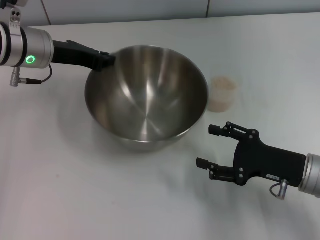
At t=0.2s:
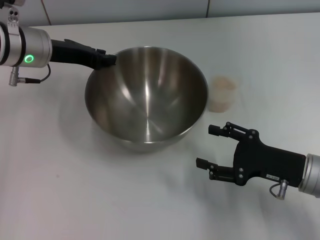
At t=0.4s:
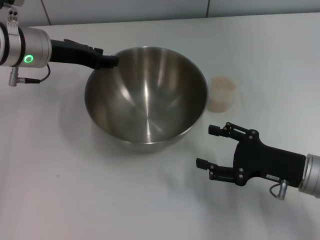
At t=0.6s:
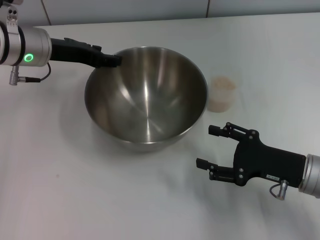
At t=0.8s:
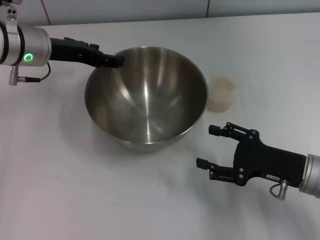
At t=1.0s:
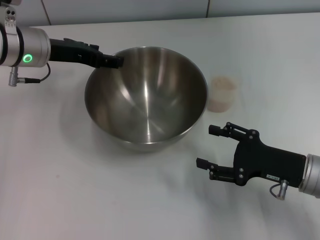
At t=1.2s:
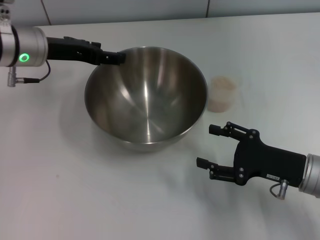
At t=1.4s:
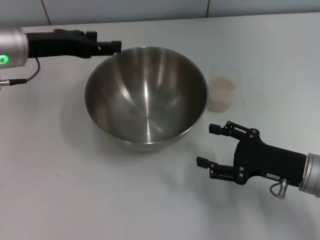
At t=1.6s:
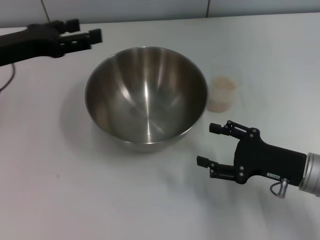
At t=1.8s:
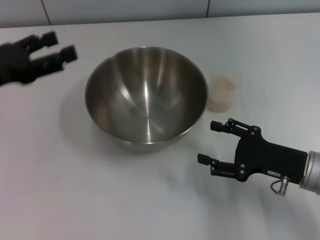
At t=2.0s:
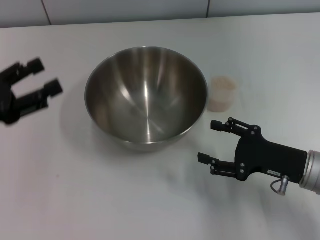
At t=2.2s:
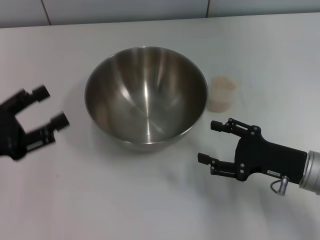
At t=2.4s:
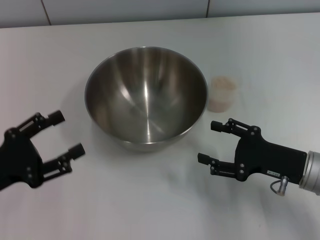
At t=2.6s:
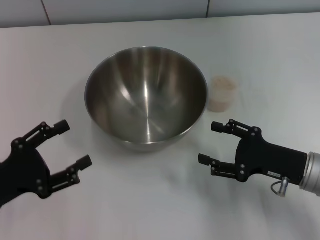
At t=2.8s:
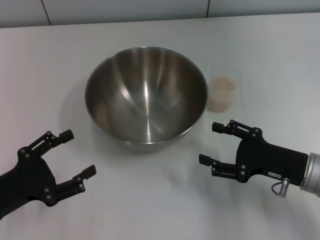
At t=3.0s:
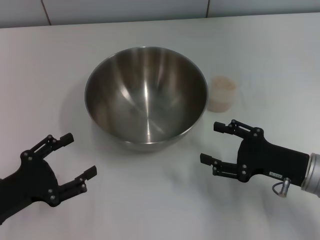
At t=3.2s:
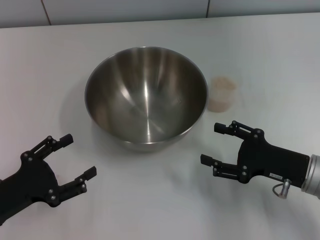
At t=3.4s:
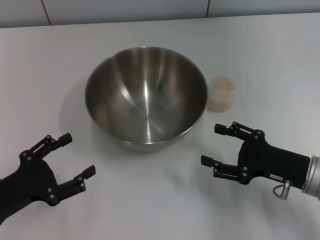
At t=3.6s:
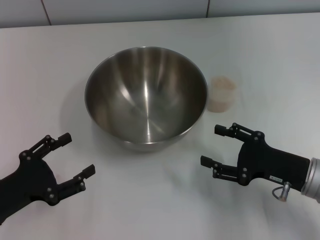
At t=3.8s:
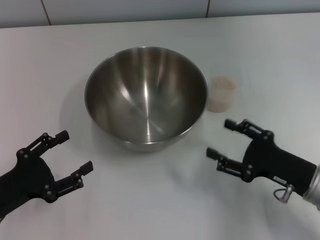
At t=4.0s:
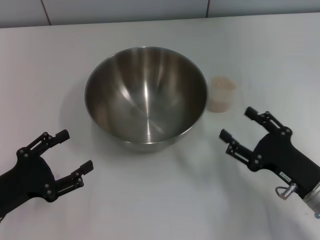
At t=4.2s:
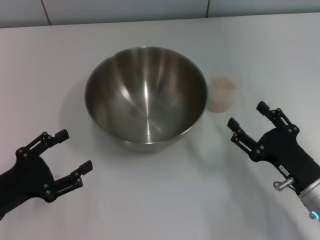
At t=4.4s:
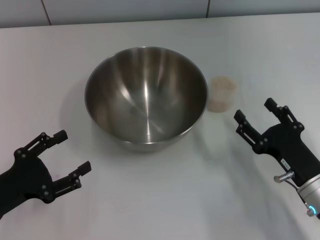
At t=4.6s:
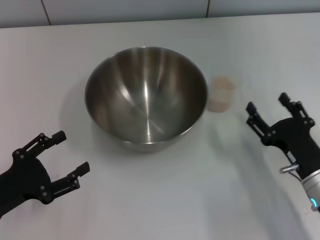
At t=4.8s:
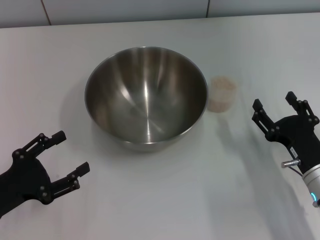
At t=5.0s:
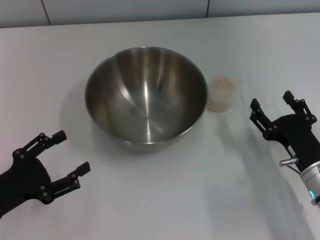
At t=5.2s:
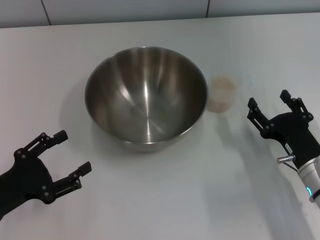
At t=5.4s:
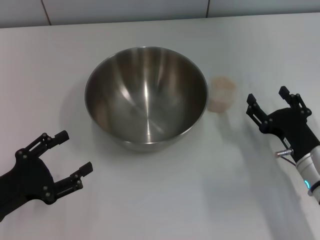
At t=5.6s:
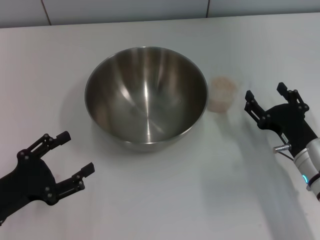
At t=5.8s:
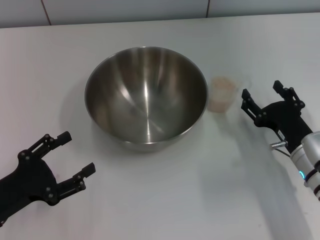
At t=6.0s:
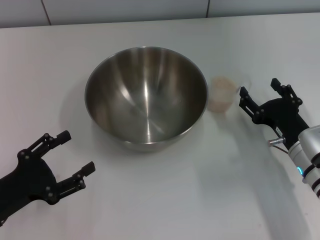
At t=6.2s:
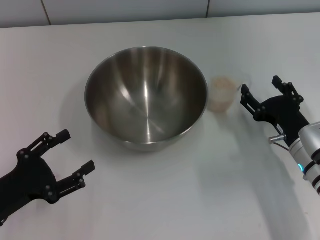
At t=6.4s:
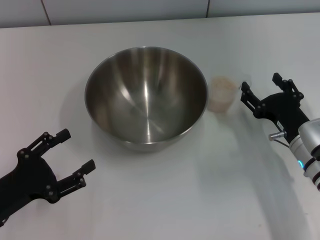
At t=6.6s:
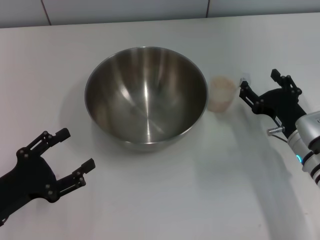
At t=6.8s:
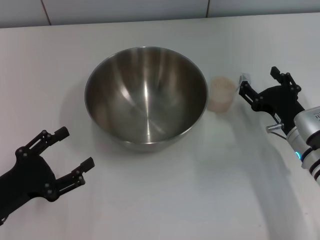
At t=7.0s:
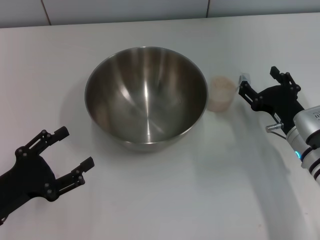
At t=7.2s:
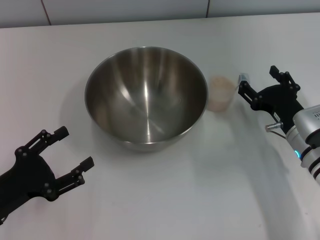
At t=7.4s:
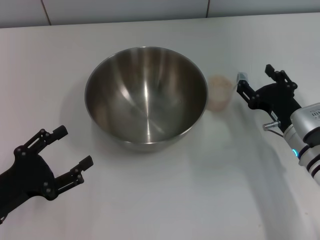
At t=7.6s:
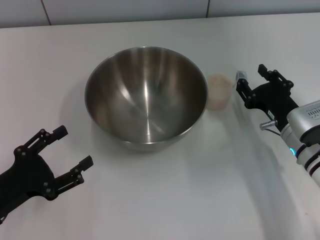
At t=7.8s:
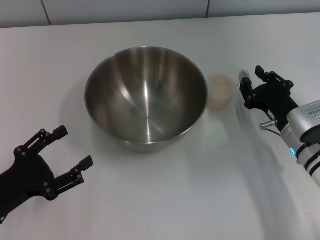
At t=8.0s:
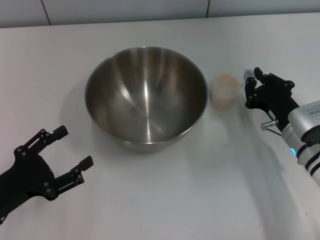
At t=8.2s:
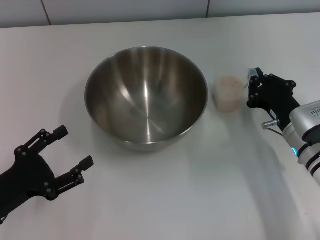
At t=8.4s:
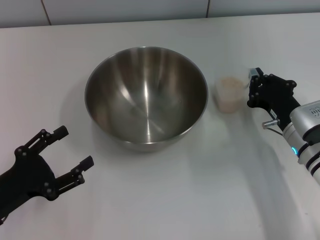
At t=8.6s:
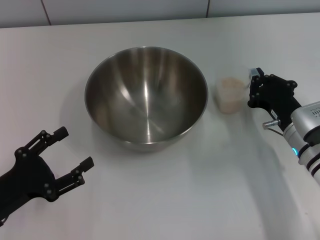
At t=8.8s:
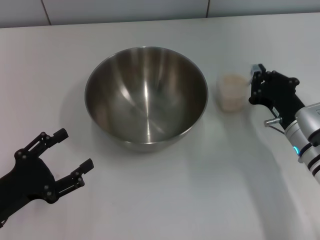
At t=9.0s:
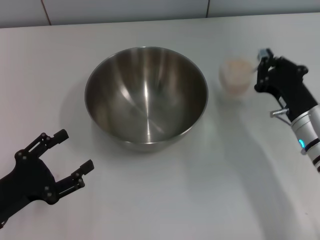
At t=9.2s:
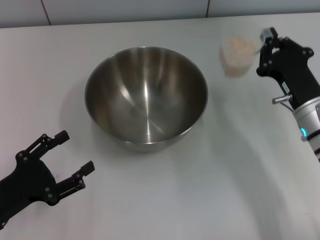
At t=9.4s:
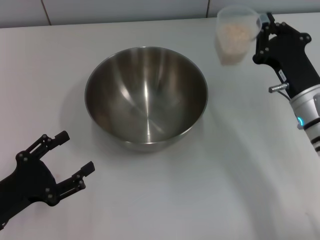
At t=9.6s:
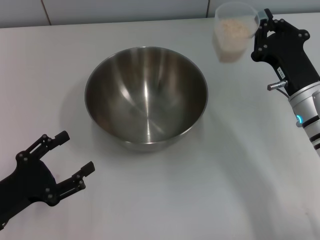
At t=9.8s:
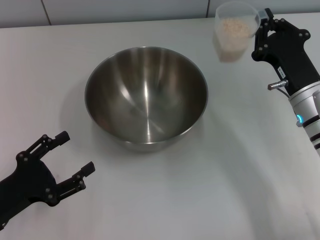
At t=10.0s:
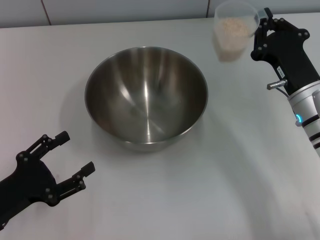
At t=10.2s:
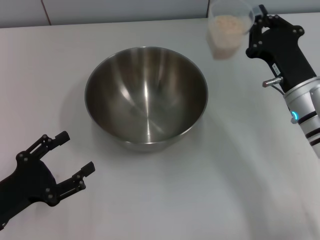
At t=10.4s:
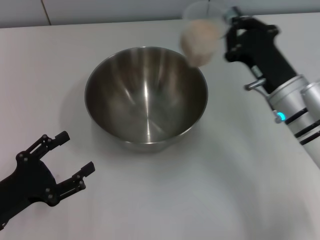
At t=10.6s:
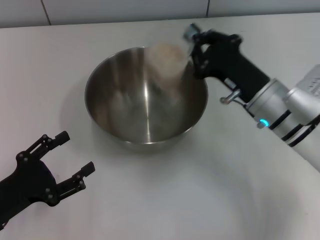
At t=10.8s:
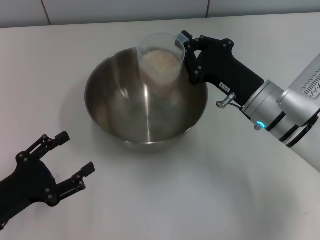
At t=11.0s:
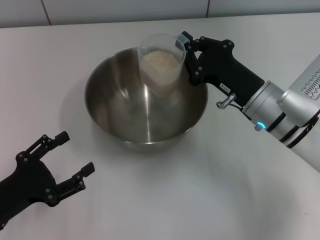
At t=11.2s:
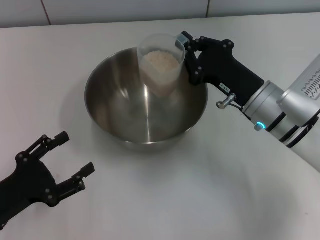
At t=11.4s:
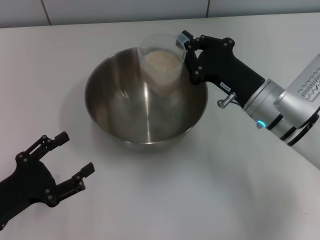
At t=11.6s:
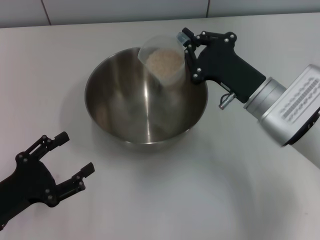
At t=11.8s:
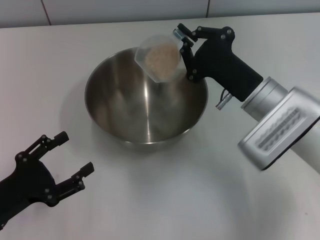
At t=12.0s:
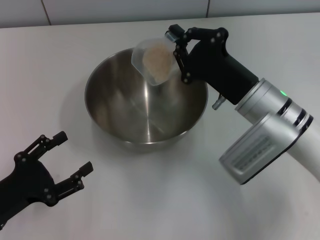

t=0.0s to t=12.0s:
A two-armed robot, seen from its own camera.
Task of the whole recording: Place the bowl in the middle of the table with one hand and pour the rice from the grain cup into it with the other hand.
Step, t=1.2s to t=9.4s: Pick up the cup with rice in it with the right gripper.
t=0.0s to t=1.6s: The left gripper travels to the left and backward by about 10 cm, and opens its fingers.
t=1.6s to t=3.0s: The left gripper moves backward and downward, some 20 cm.
t=3.0s to t=4.4s: The right gripper ends up about 5 cm from where it was.
t=4.4s to t=6.0s: The right gripper moves forward, about 5 cm.
t=6.0s to t=7.6s: The grippers stay close to where they were, moving slightly.
t=7.6s to t=9.0s: The right gripper closes up.
t=9.0s to t=10.4s: The right gripper shifts by some 5 cm.

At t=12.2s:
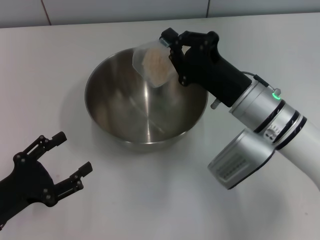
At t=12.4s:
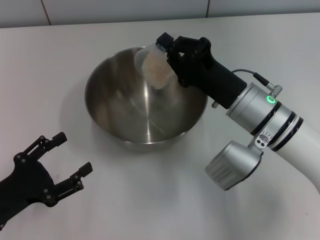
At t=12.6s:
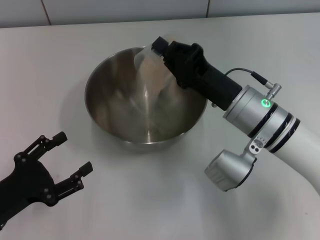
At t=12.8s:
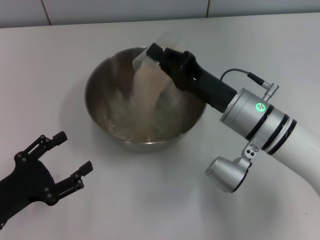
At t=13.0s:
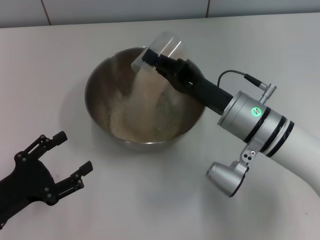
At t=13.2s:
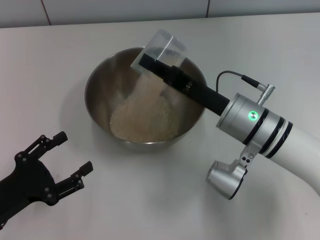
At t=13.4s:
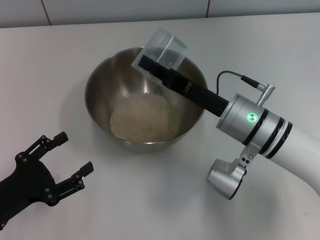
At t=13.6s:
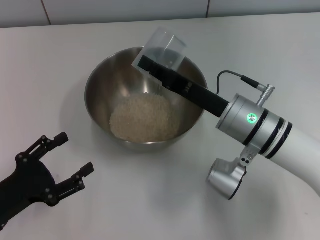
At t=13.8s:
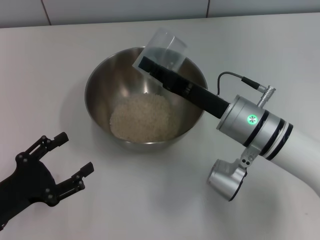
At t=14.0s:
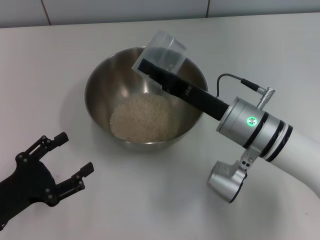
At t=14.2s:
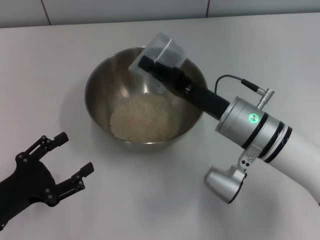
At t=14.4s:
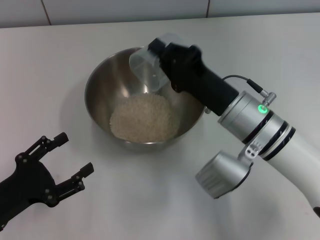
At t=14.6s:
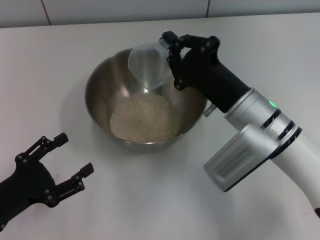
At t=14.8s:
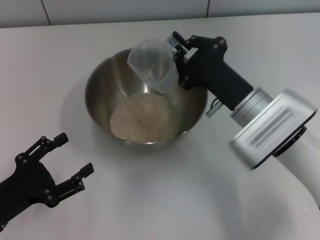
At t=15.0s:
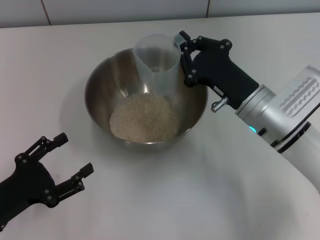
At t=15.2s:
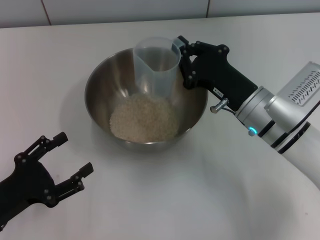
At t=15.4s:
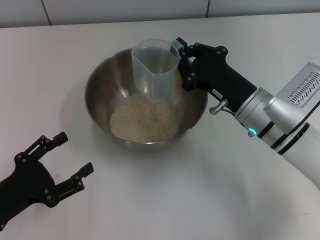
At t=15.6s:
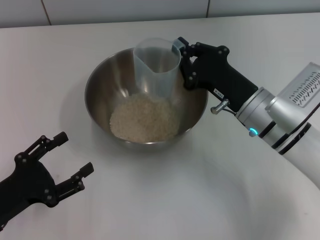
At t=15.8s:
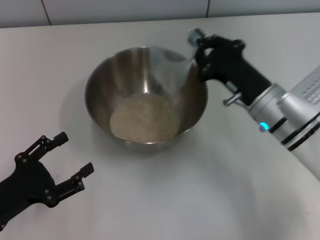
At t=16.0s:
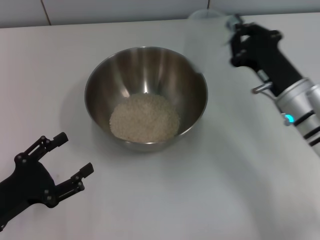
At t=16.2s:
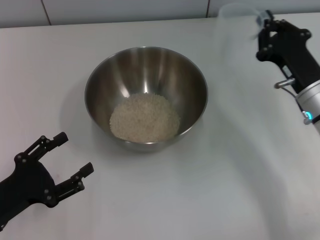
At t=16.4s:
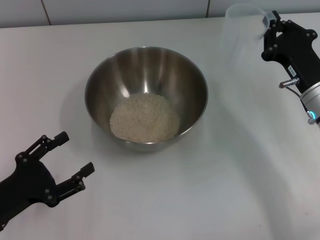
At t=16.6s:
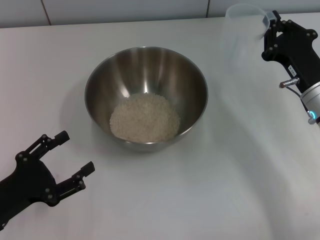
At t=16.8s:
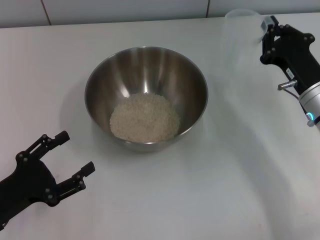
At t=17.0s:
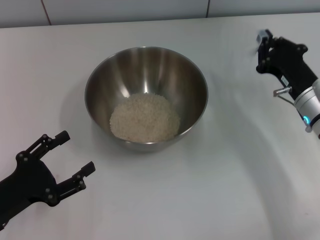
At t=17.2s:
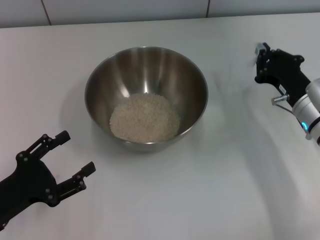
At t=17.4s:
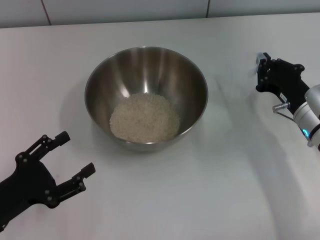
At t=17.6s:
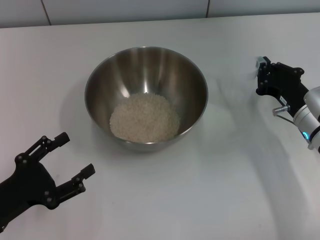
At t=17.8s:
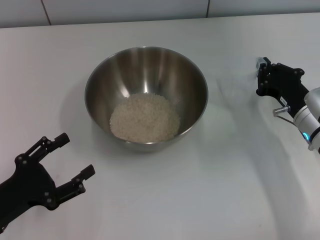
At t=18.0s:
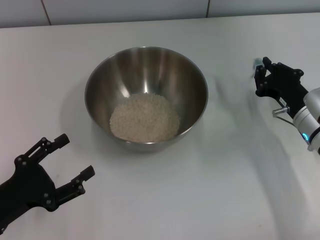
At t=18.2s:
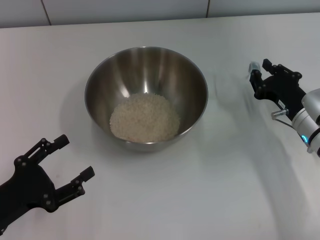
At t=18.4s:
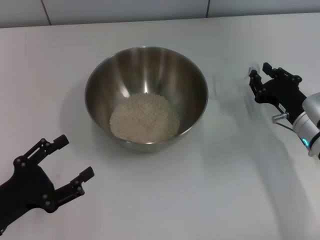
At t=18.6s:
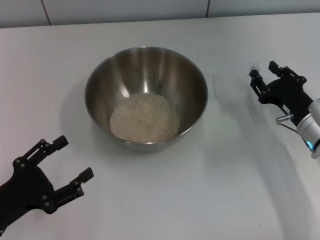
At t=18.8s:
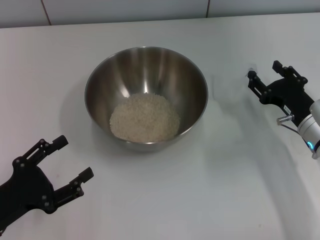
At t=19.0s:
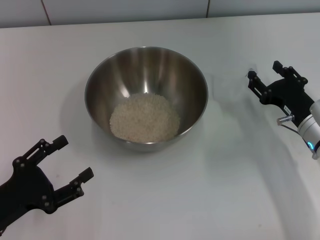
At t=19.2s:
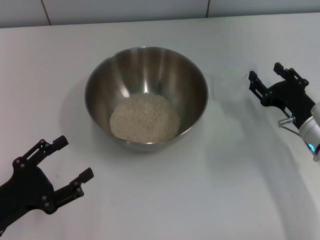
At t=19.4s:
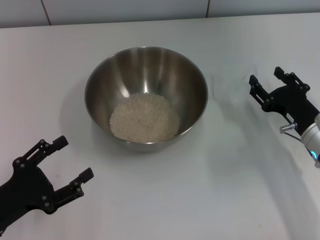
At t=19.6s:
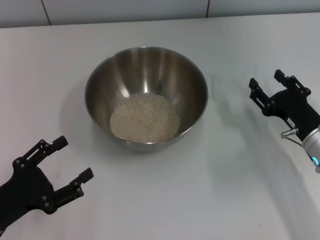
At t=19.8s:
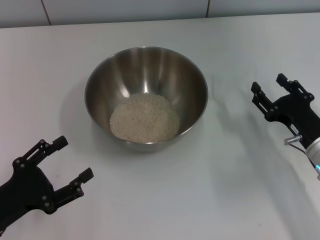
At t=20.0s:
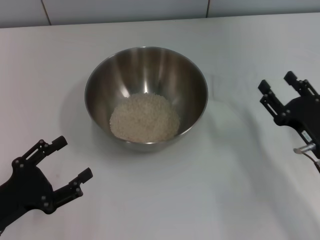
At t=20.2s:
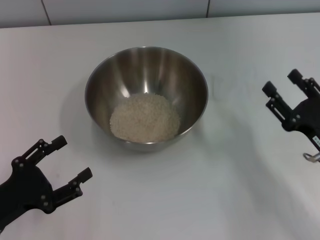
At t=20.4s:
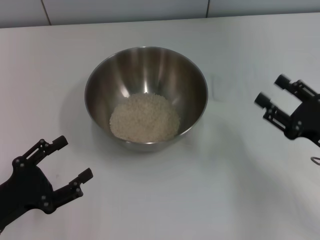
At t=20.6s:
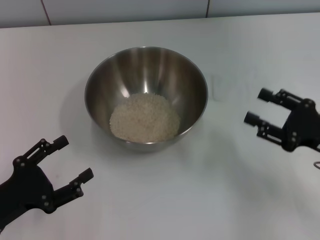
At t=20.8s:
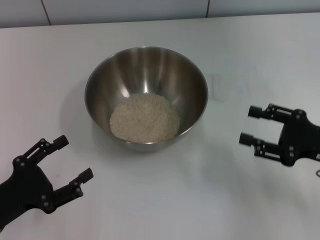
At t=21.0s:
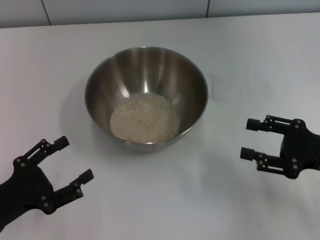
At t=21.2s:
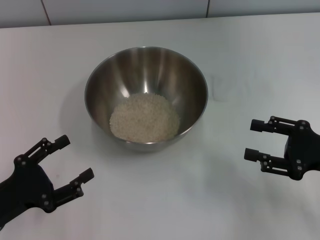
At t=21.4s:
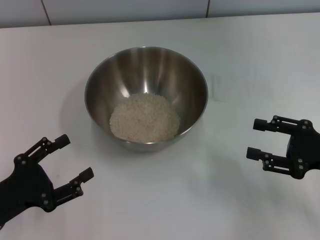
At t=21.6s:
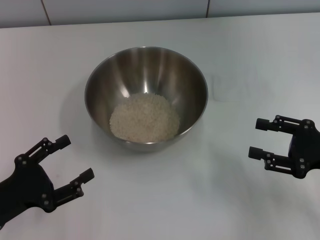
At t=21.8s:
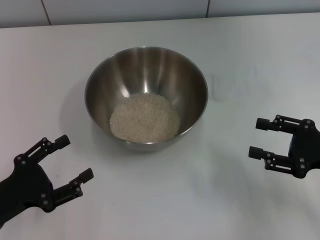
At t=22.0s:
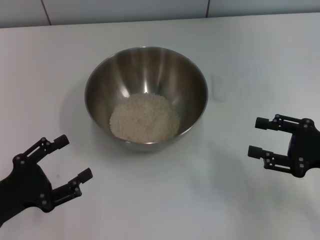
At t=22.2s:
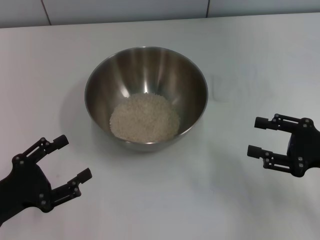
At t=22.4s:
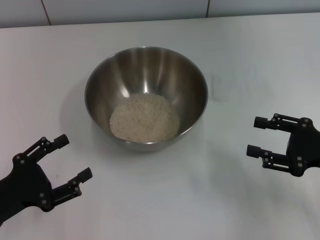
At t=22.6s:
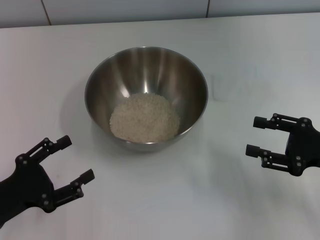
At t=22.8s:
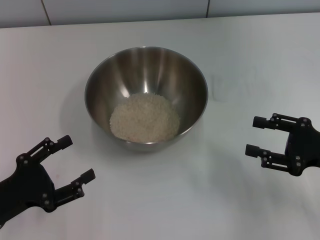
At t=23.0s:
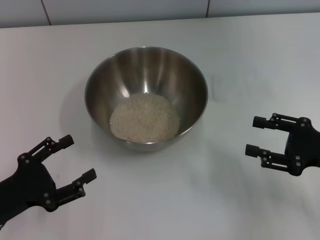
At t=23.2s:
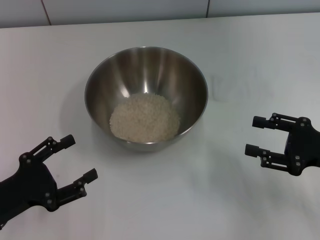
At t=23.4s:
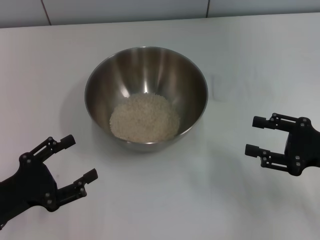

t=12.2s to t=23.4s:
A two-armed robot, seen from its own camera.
Task of the whole recording: Place the bowl in the middle of the table with one hand and pour the rice from the grain cup into it with the other hand.
Step, t=12.2s to t=16.2s: Pour the rice from the cup into the bowl with the right gripper.
Step, t=16.4s to t=20.6s: Place the cup on the table with the right gripper.
t=15.4s to t=17.0s: The right gripper moves to the right, roughly 10 cm.
t=17.0s to t=18.6s: The right gripper opens.
t=18.6s to t=20.2s: The right gripper shifts roughly 10 cm backward, and opens.
t=20.2s to t=21.8s: The right gripper shifts by approximately 5 cm.
t=21.8s to t=23.4s: The two grippers keep their place.
